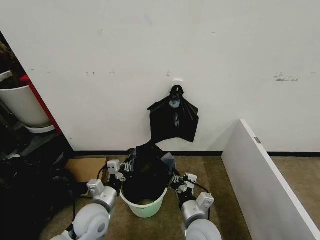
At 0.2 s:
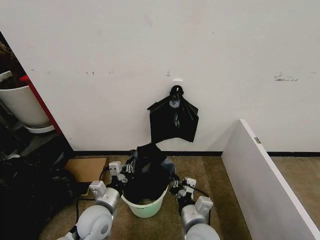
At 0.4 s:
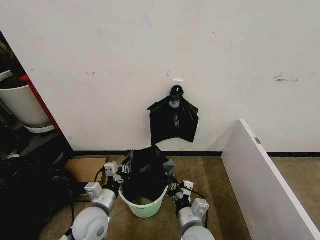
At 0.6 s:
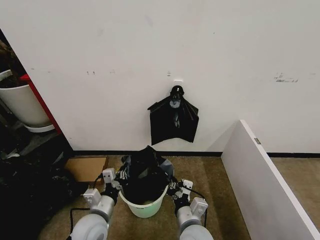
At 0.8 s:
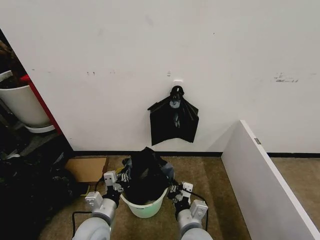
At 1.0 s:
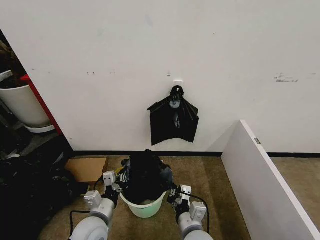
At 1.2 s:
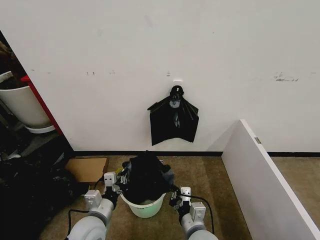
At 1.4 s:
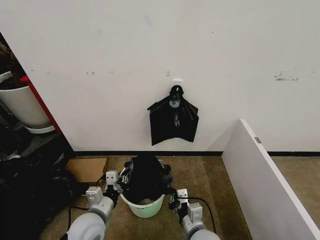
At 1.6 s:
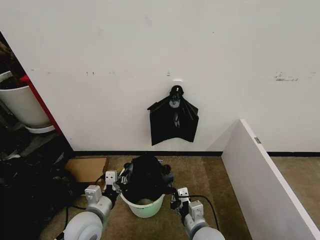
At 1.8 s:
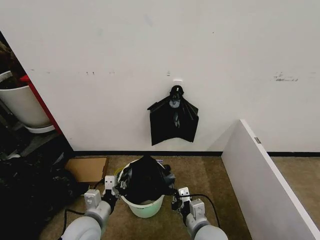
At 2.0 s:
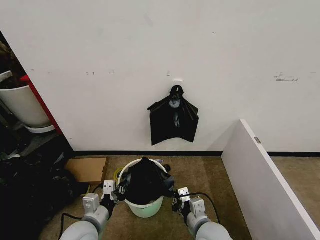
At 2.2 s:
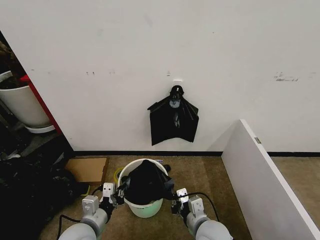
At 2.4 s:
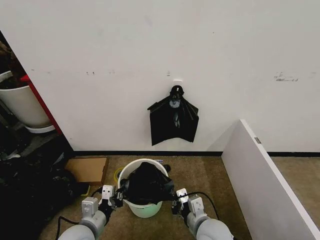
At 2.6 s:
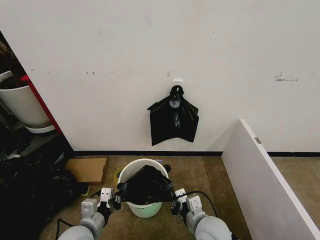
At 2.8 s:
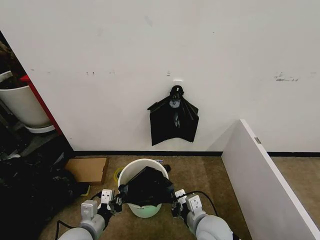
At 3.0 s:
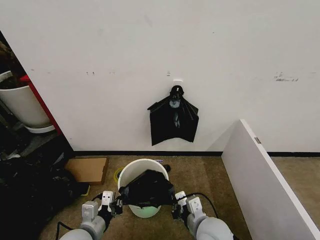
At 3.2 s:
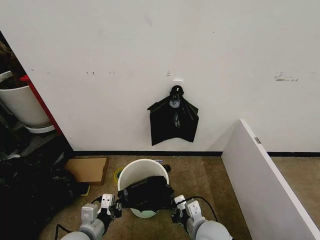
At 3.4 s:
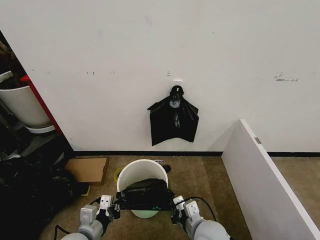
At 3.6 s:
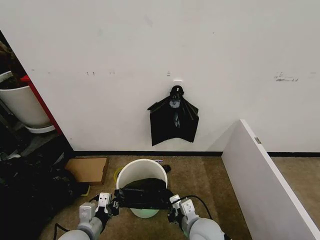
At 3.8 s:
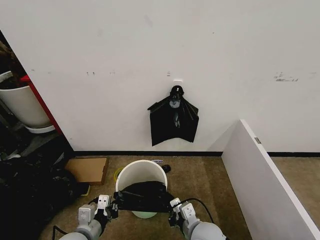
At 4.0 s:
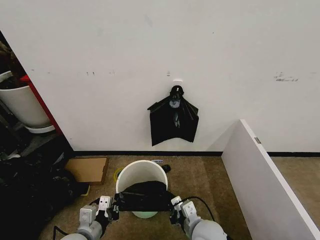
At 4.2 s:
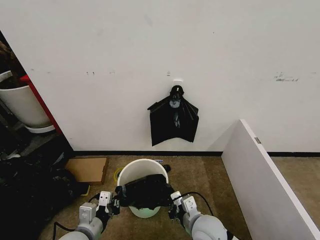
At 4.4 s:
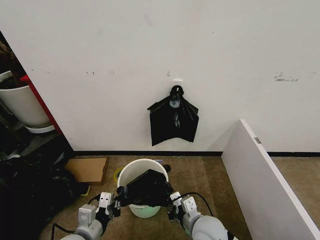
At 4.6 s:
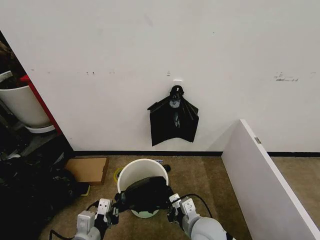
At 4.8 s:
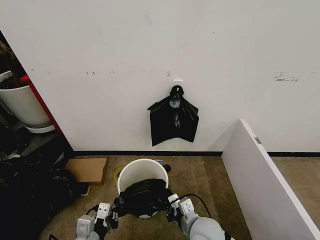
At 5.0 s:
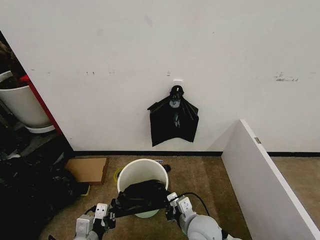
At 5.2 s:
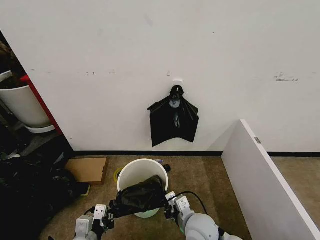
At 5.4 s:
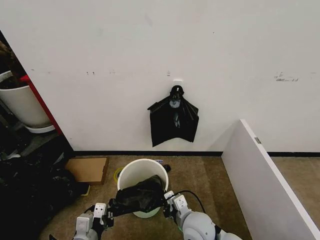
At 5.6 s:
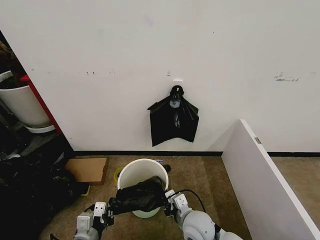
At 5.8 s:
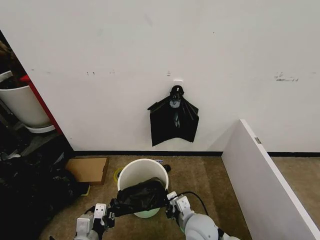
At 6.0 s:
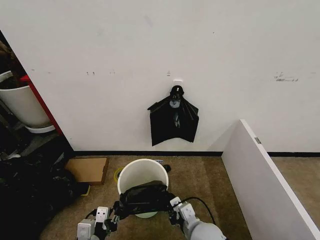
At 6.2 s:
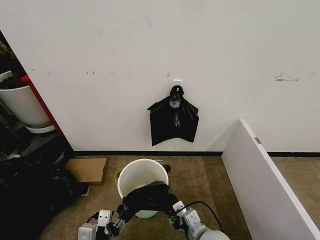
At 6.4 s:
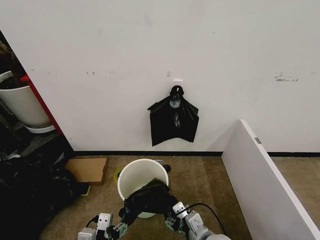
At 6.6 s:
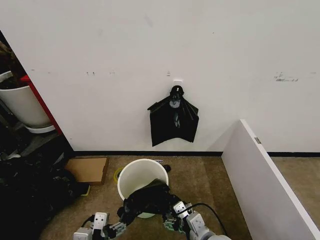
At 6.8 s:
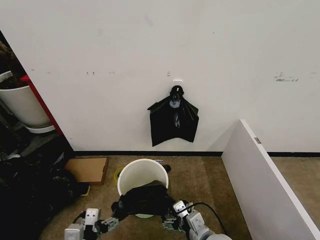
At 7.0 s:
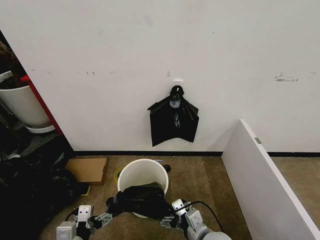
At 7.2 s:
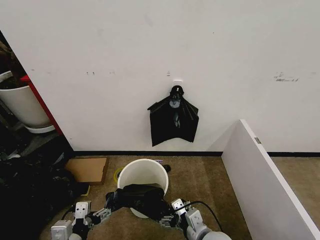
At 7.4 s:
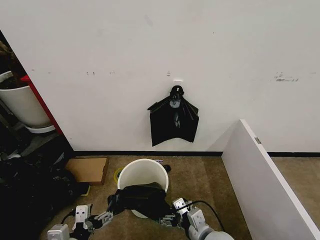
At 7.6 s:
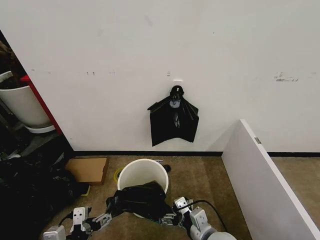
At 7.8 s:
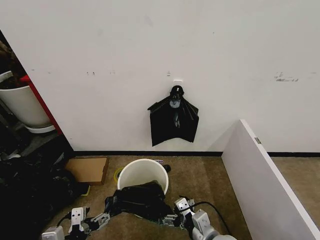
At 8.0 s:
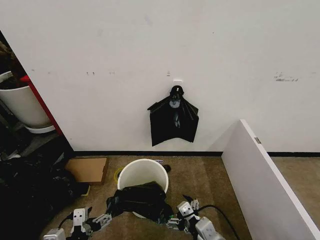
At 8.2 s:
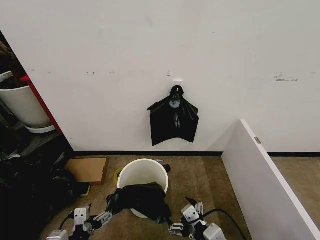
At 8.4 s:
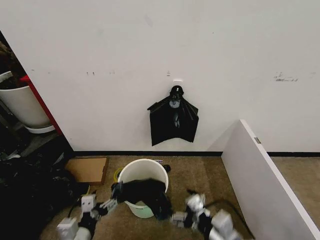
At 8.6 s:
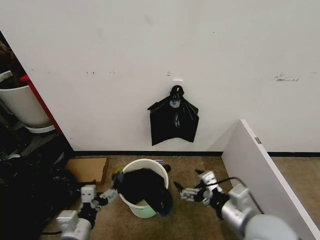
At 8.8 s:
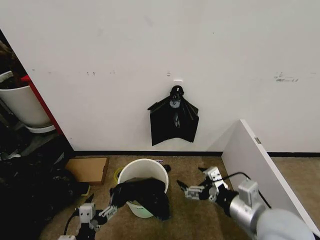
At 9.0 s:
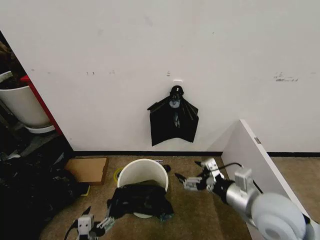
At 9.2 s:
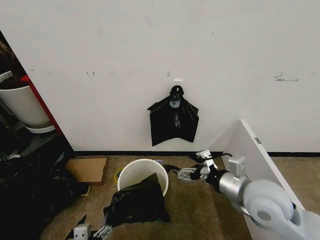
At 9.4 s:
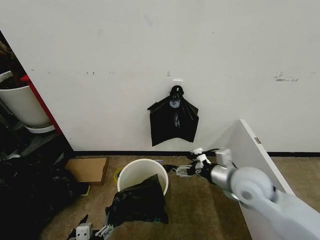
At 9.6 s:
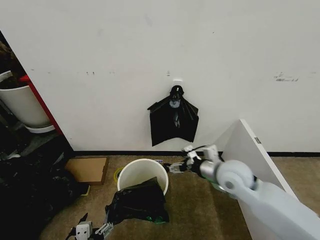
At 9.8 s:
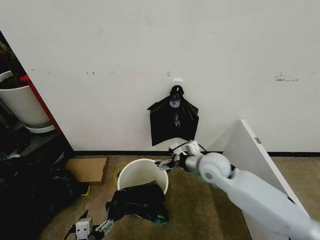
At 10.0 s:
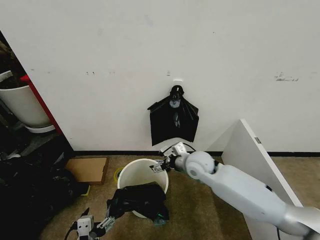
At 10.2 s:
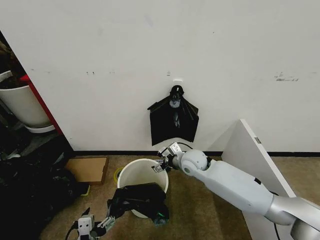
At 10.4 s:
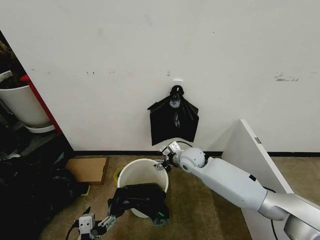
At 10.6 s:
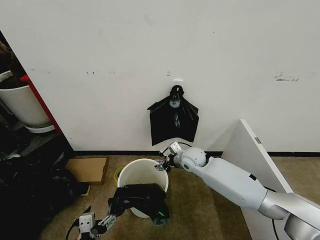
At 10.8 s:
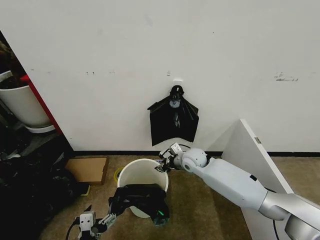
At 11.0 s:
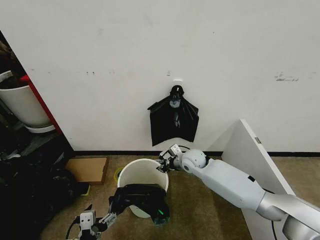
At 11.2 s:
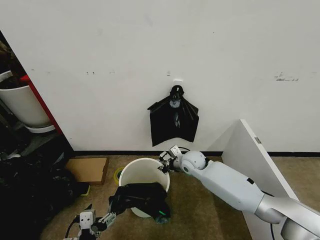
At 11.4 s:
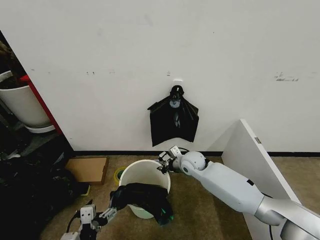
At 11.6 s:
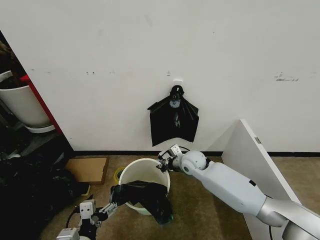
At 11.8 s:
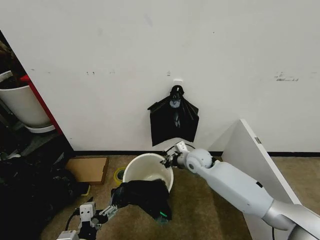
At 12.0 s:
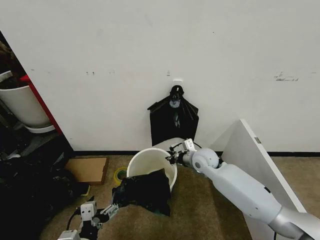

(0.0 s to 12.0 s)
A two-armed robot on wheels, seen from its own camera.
Task of the whole recording: Place the garbage bag over the trash bin.
3.0 s - 6.0 s: The grippers make only small movements.
6.0 s - 7.6 s: The left gripper ends up roughly 5 cm from where it was, and opens up. Meanwhile the right gripper shifts by about 5 cm, and opens up.
7.6 s - 9.0 s: The right gripper goes approximately 20 cm upward, to the right and forward. The left gripper heads downward, covering approximately 5 cm.
9.0 s - 10.4 s: The right gripper moves forward, to the left and downward, approximately 30 cm.
10.4 s - 12.0 s: The right gripper closes.

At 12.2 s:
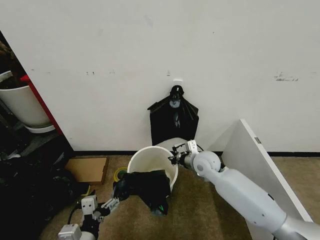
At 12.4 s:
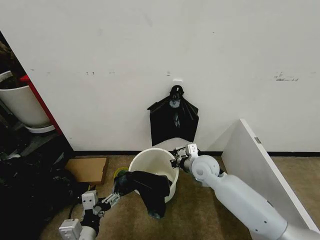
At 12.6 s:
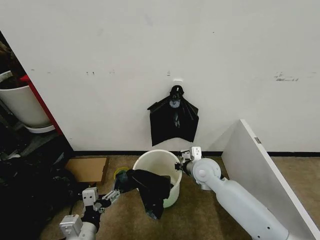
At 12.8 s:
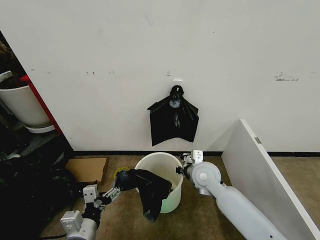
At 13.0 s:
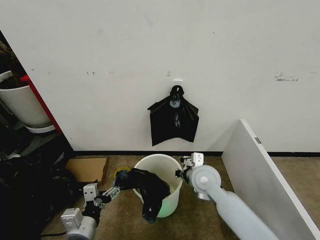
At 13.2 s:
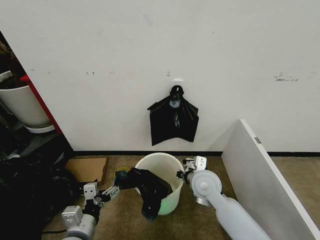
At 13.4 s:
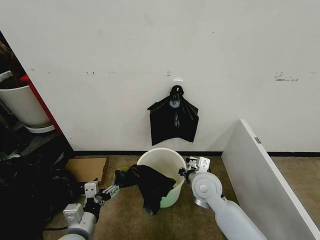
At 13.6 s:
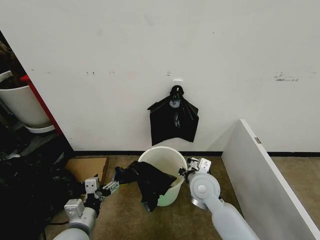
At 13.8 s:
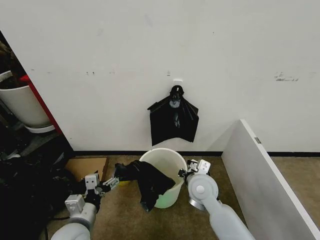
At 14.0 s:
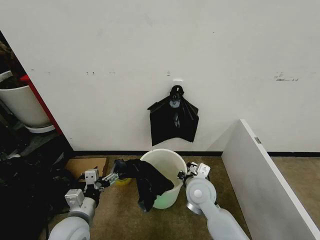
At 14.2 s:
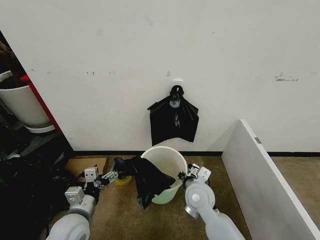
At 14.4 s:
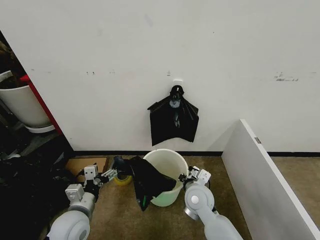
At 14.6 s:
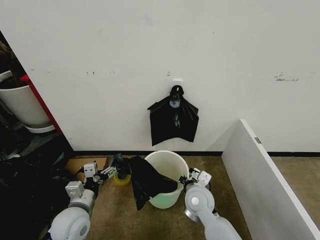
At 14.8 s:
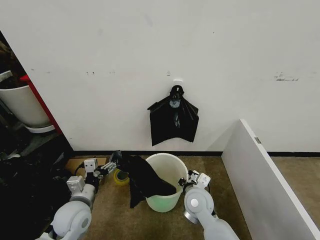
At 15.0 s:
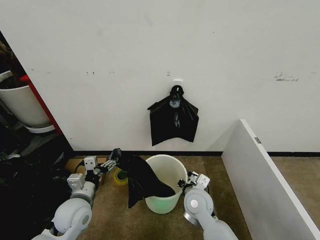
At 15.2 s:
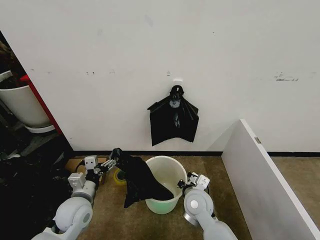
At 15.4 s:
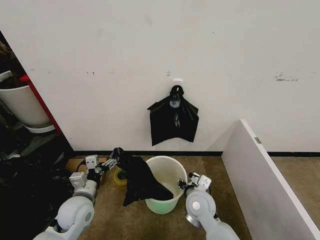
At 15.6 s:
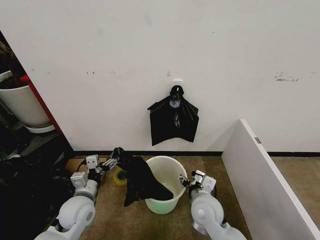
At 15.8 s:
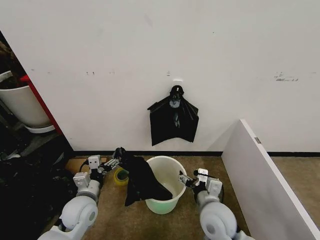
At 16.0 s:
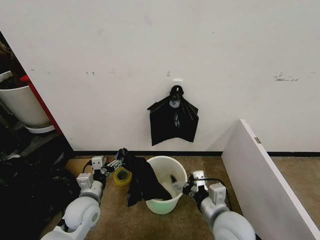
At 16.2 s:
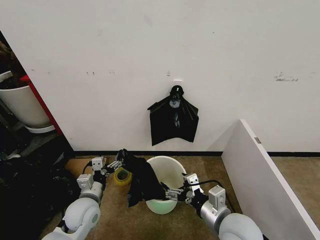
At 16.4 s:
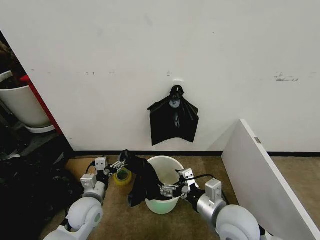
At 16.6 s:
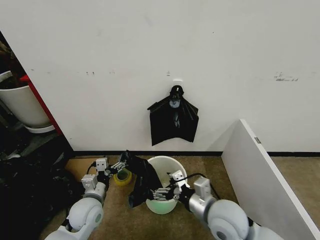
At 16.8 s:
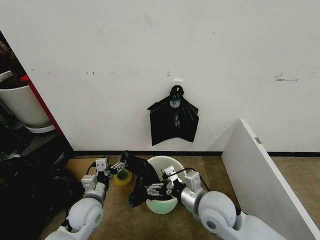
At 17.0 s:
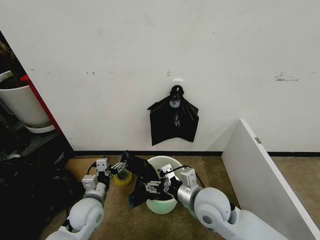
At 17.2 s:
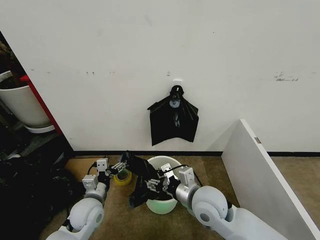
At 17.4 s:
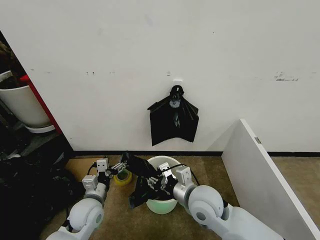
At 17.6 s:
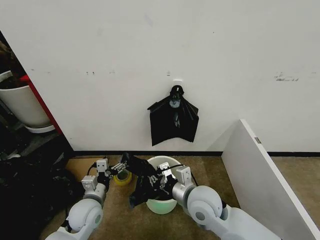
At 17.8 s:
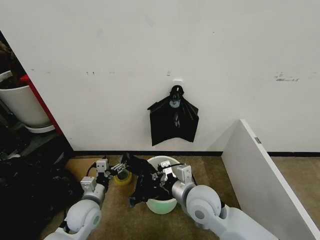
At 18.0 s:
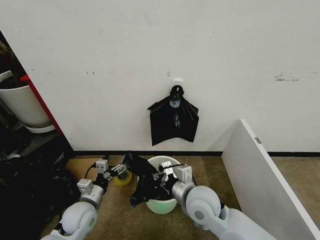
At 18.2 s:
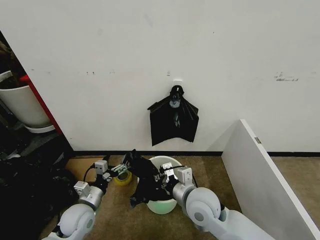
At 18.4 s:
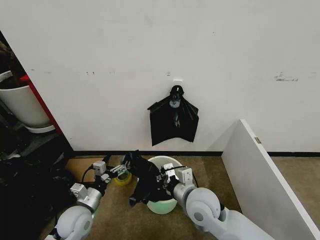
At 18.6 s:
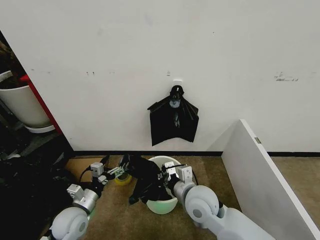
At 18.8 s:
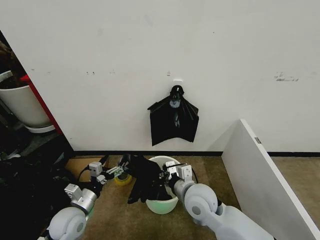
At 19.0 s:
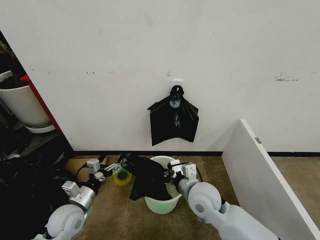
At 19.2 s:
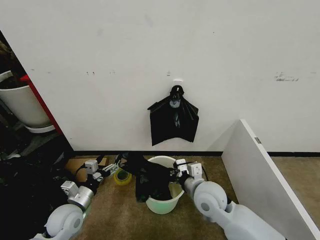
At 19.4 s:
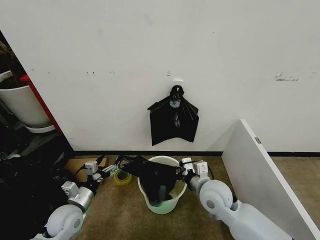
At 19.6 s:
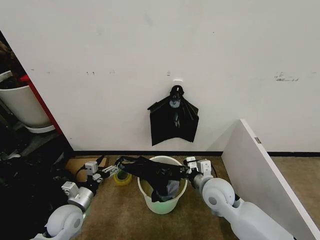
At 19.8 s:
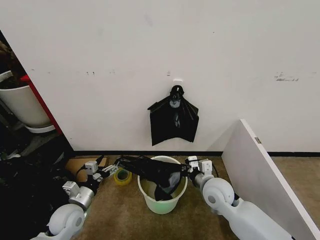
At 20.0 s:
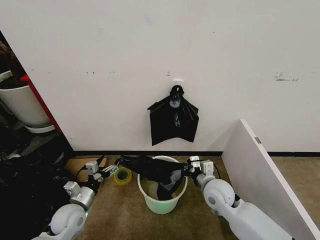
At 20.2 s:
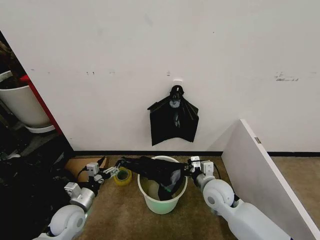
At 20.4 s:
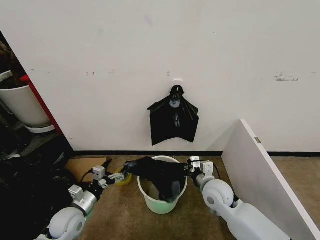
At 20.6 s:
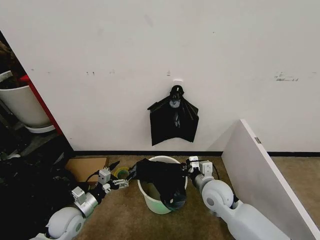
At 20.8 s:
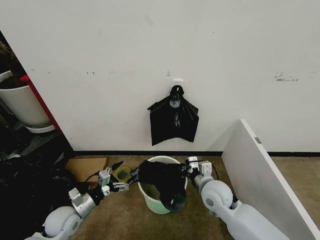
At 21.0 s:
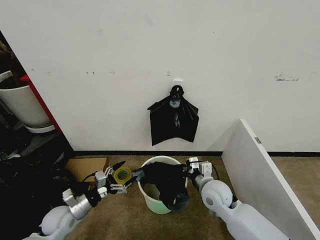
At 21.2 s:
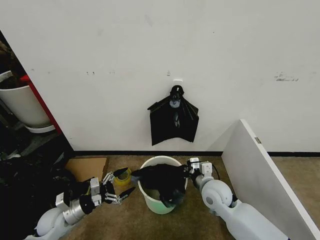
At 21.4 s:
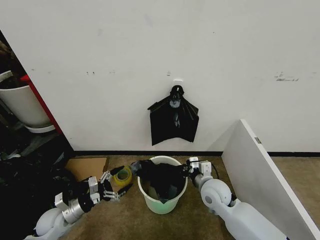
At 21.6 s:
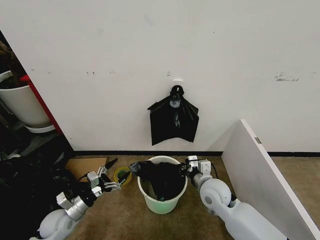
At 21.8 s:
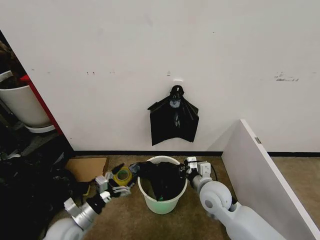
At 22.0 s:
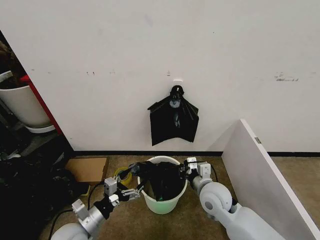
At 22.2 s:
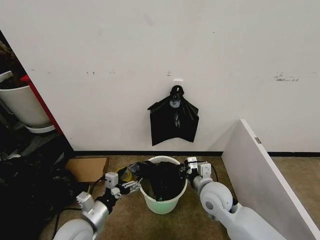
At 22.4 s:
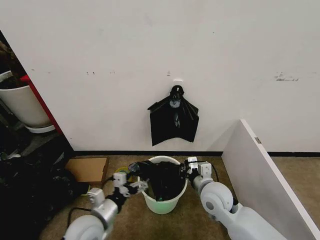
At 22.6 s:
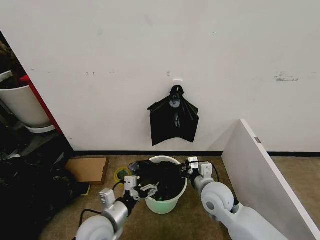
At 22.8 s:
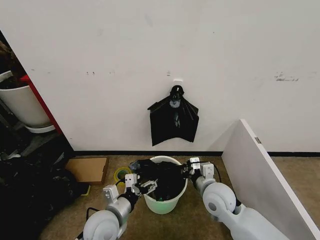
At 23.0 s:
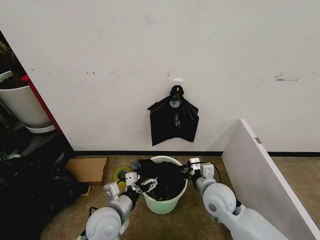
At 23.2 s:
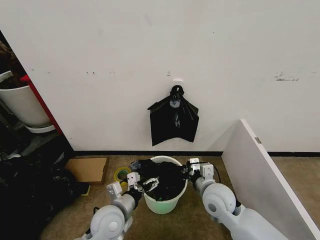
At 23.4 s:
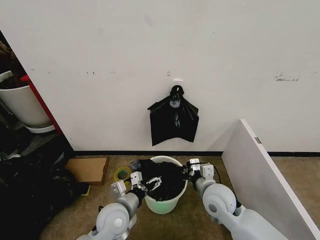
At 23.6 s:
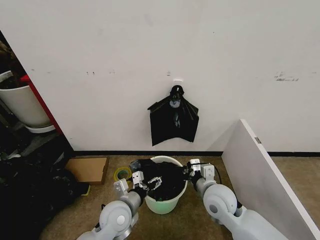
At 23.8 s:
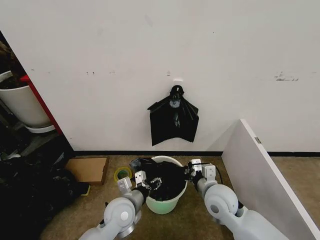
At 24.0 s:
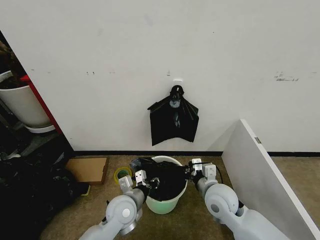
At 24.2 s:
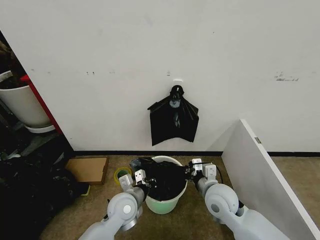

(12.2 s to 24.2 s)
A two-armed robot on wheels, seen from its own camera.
Task of the whole recording: Place the garbage bag over the trash bin.
12.2 s - 13.8 s: The right gripper travels backward by about 10 cm. The left gripper heads forward, covering roughly 10 cm.
13.8 s - 15.2 s: The right gripper shifts by roughly 5 cm, while the left gripper is displaced forward by roughly 5 cm.
15.2 s - 16.6 s: The right gripper goes about 10 cm upward and backward, and opens.
16.6 s - 18.2 s: The right gripper heads to the left, covering about 5 cm, and closes.
18.2 s - 19.8 s: The right gripper shifts about 10 cm to the right and forward.
19.8 s - 21.2 s: The left gripper shifts roughly 5 cm to the left.
21.2 s - 22.6 s: The left gripper goes about 20 cm to the right and upward.
22.6 s - 24.2 s: The left gripper goes about 10 cm forward and to the right, and closes up.
